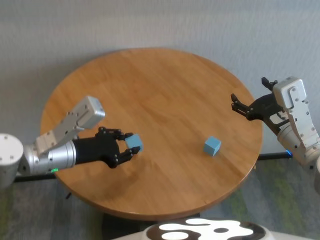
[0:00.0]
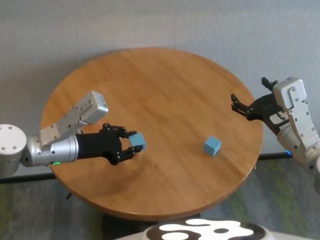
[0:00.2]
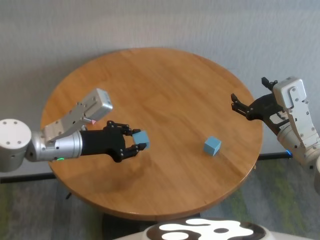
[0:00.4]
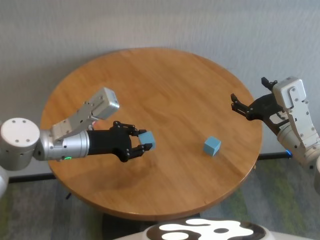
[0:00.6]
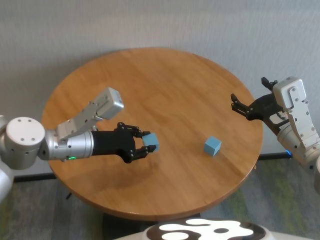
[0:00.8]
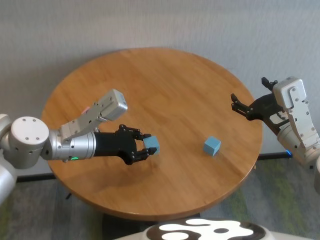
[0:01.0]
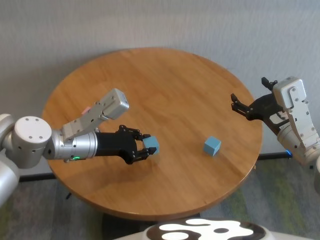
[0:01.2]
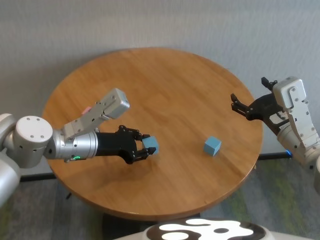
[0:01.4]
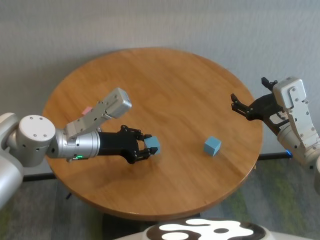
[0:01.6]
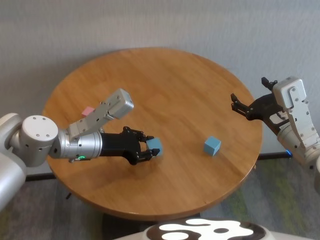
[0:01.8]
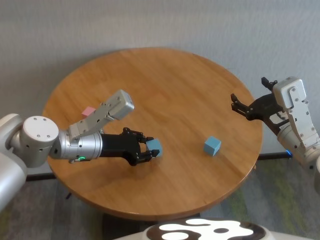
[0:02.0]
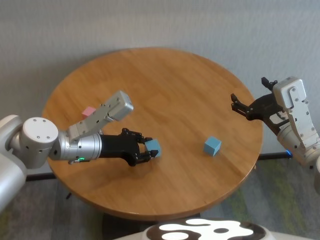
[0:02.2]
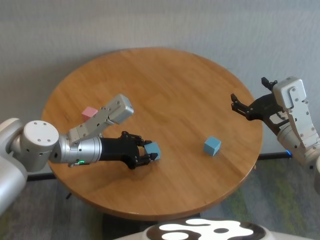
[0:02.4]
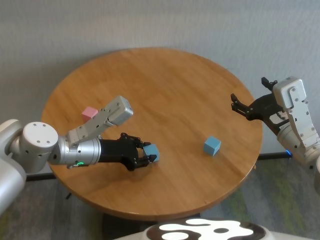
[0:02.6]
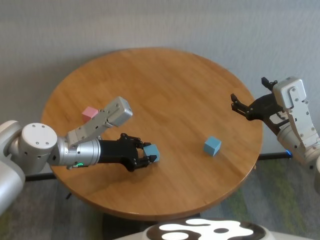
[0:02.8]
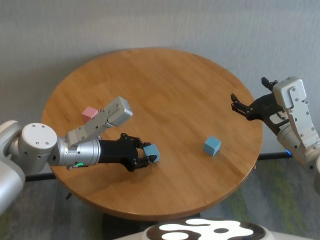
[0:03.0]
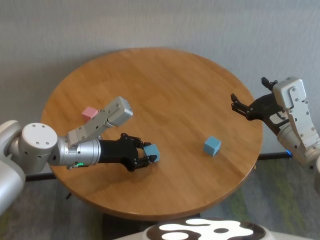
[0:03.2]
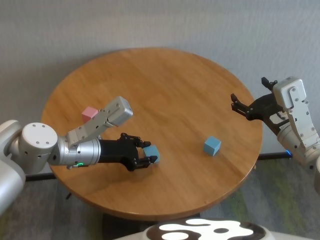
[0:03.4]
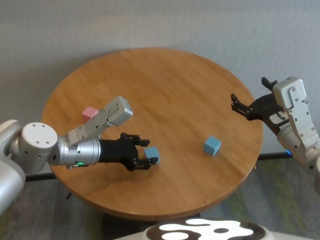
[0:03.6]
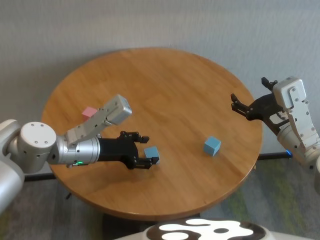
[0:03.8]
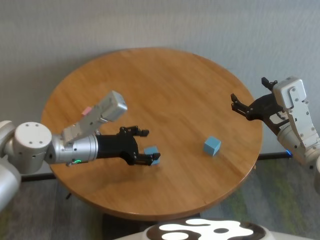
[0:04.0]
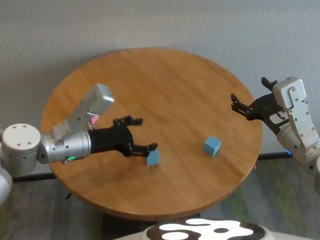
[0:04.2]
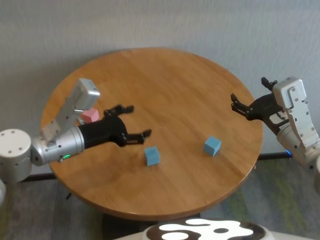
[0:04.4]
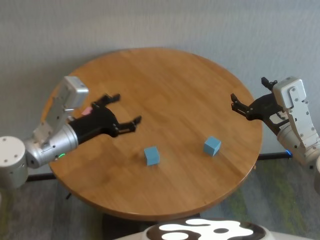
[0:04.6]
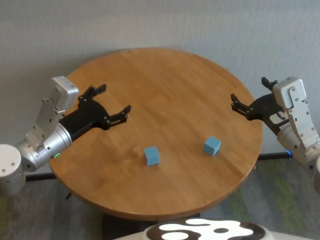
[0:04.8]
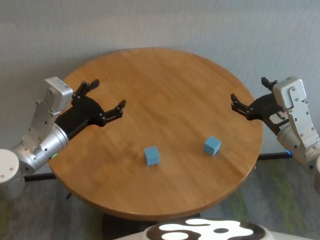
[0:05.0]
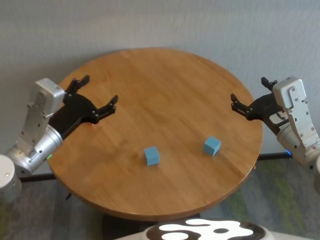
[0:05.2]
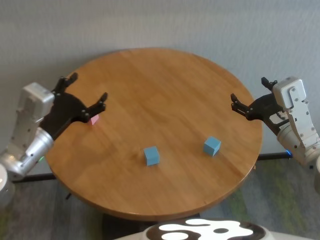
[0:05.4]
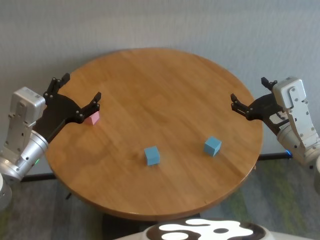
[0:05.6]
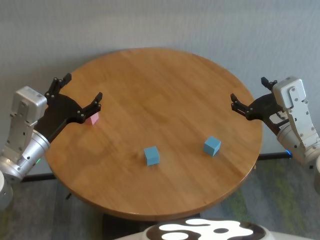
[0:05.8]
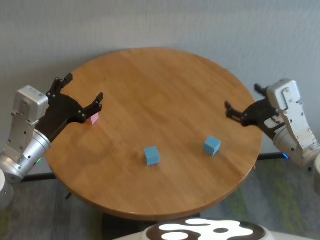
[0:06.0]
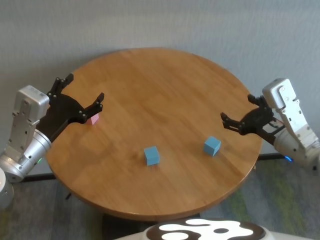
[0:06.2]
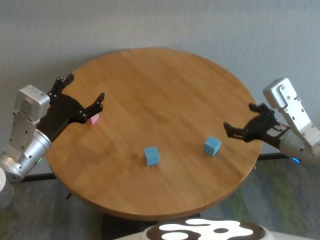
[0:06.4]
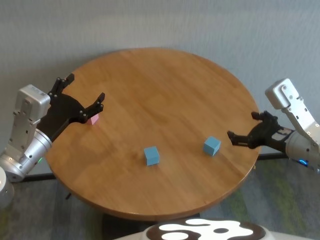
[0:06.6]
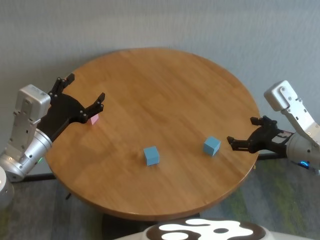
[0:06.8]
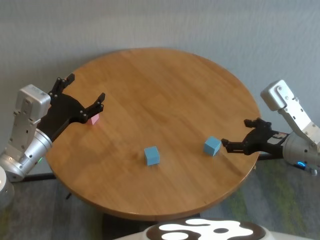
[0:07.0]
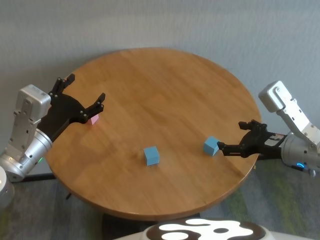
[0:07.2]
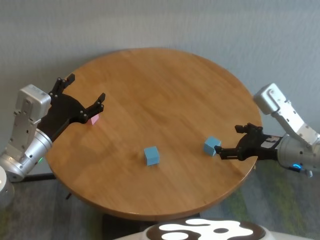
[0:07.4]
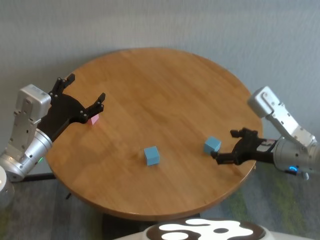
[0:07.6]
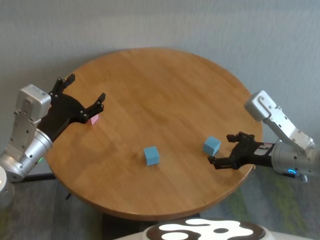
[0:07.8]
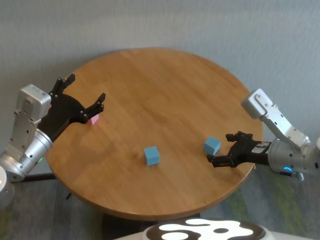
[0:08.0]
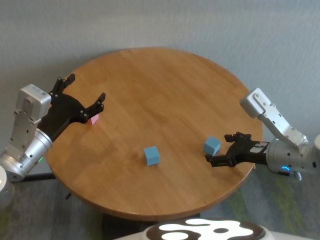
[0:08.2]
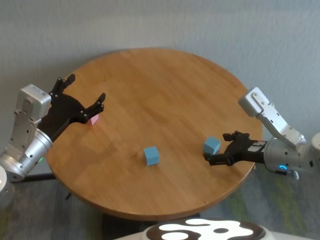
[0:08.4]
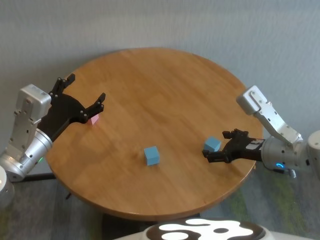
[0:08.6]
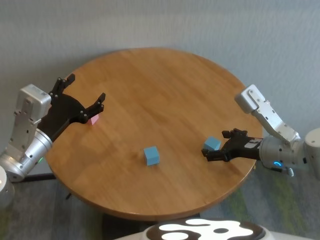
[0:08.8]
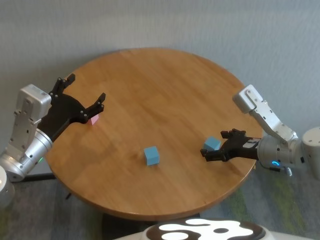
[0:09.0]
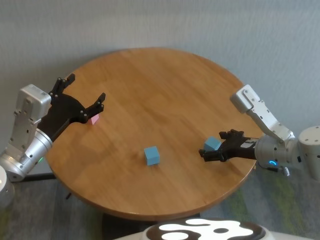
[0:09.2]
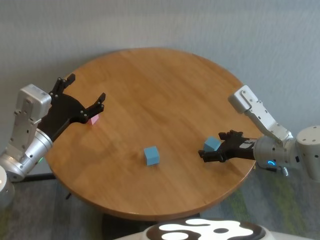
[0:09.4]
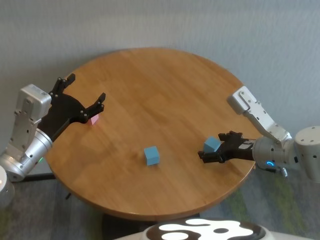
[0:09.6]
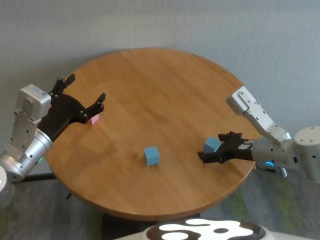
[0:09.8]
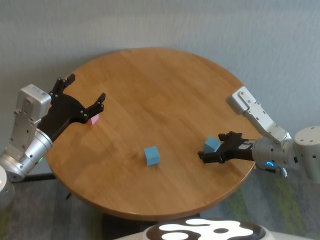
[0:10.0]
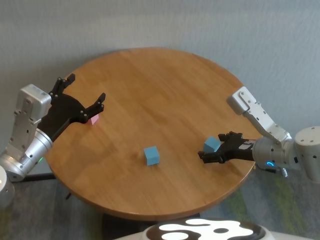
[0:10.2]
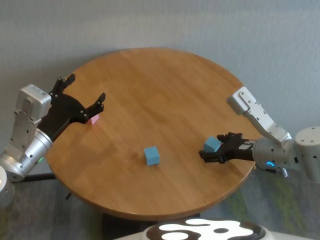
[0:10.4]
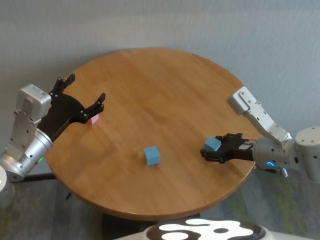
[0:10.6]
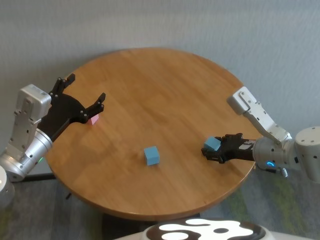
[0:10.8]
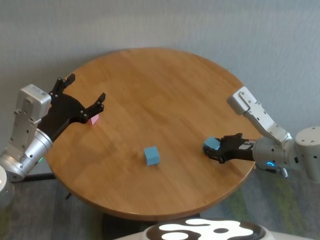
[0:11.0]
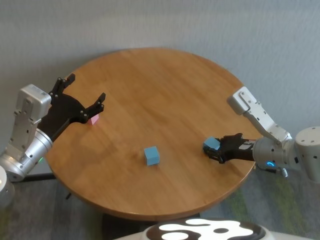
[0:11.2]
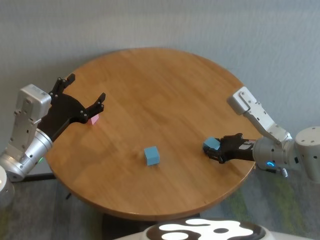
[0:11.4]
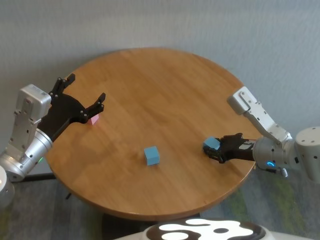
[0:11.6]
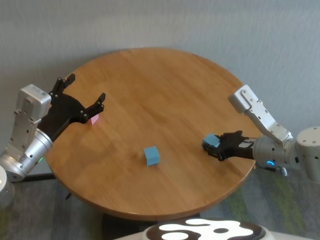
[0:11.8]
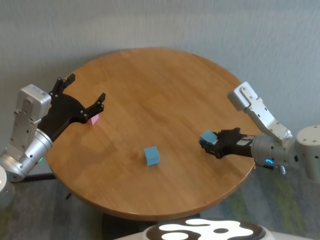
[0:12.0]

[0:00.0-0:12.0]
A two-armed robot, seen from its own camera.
Task of the whole recording: stack building blocks on the table.
Step, 0:00.0 to 0:03.6: Place the blue building block in the center of table with left gripper.
Step, 0:04.0 to 0:11.6: Grasp the blue building block with right gripper.

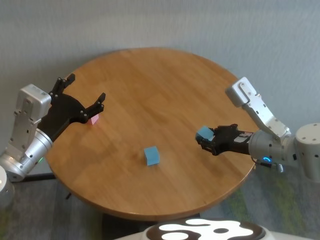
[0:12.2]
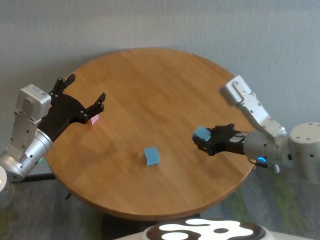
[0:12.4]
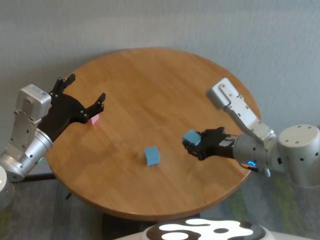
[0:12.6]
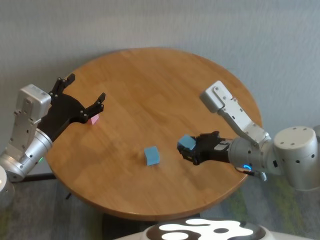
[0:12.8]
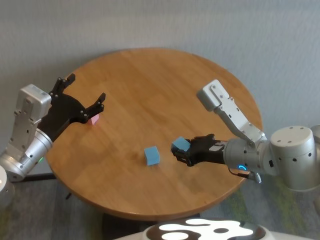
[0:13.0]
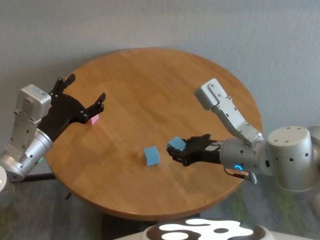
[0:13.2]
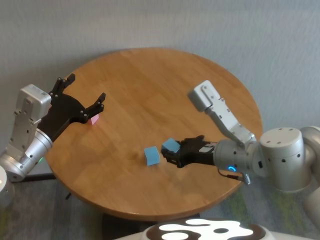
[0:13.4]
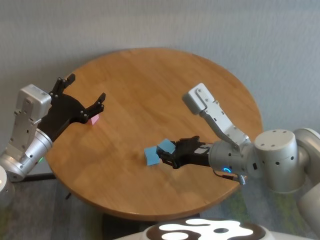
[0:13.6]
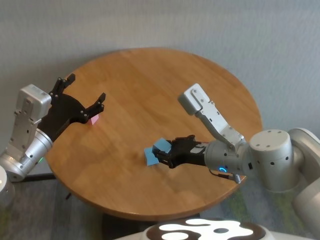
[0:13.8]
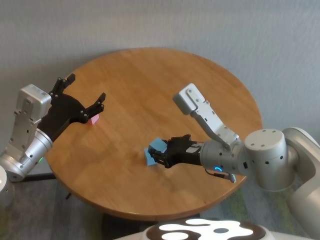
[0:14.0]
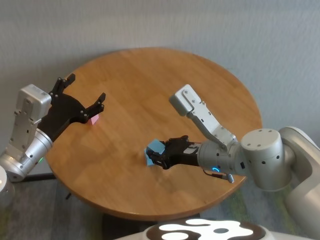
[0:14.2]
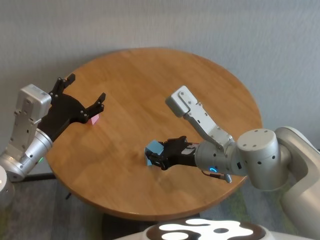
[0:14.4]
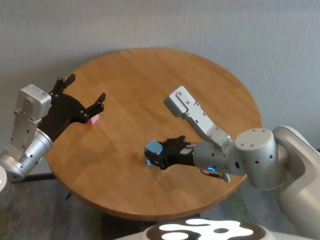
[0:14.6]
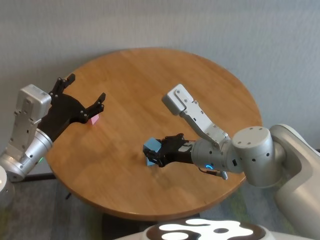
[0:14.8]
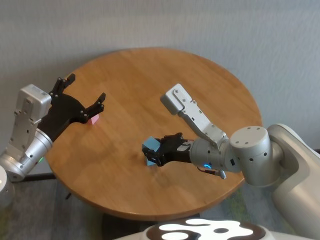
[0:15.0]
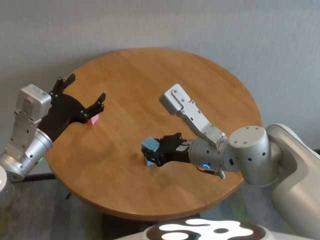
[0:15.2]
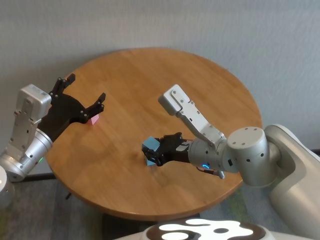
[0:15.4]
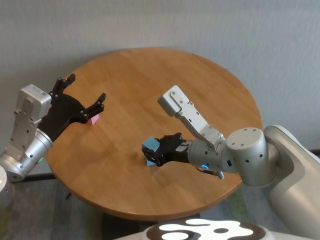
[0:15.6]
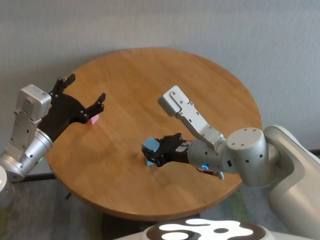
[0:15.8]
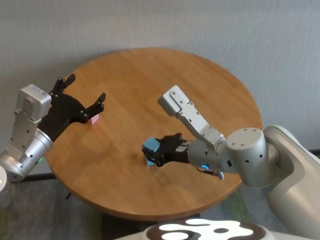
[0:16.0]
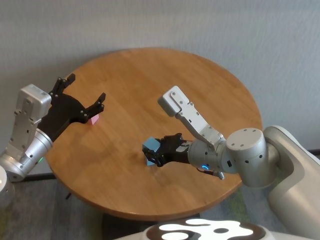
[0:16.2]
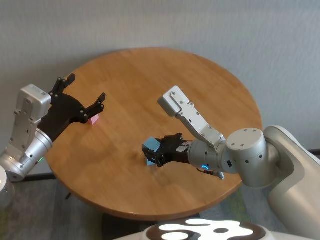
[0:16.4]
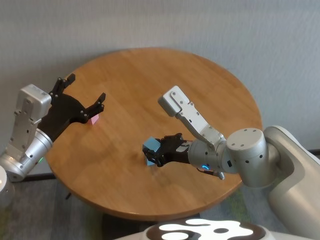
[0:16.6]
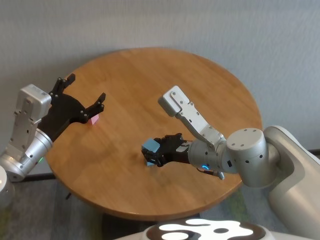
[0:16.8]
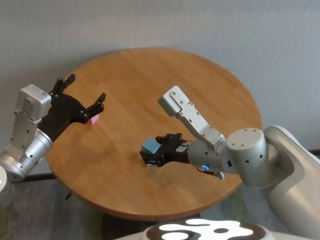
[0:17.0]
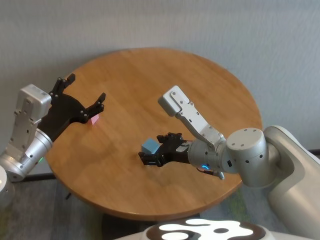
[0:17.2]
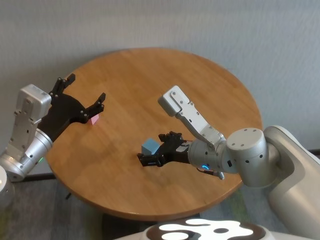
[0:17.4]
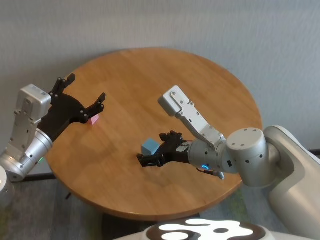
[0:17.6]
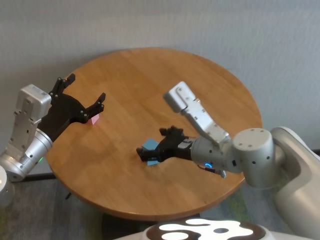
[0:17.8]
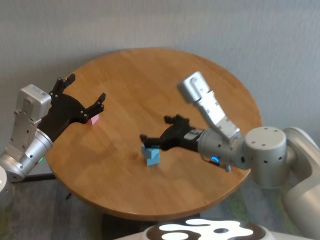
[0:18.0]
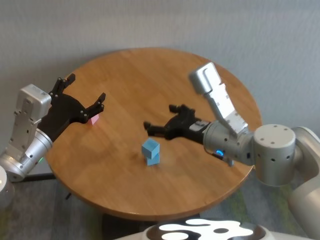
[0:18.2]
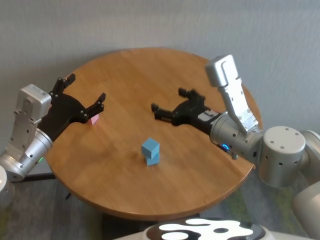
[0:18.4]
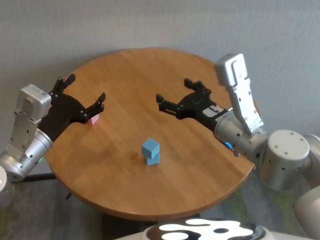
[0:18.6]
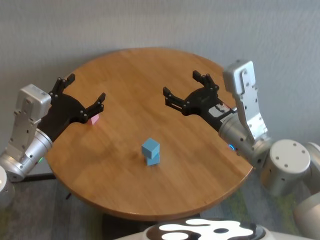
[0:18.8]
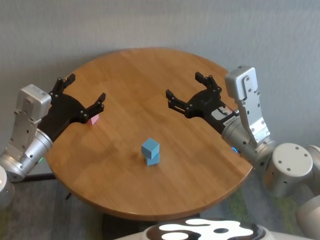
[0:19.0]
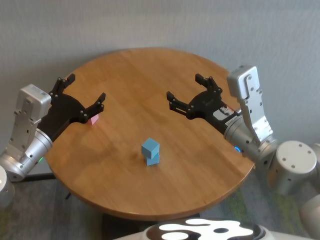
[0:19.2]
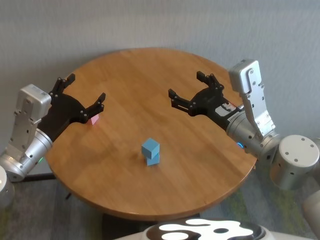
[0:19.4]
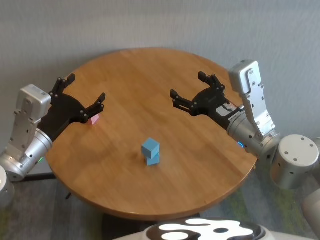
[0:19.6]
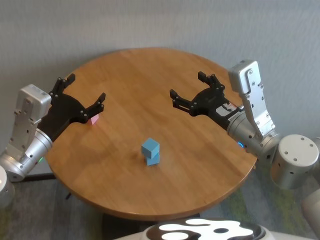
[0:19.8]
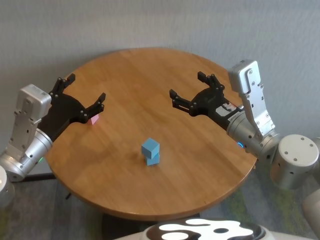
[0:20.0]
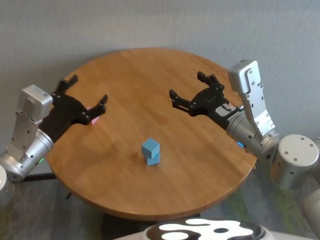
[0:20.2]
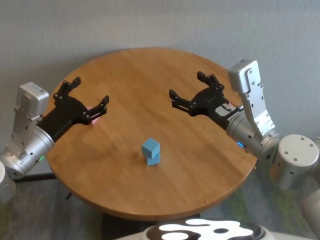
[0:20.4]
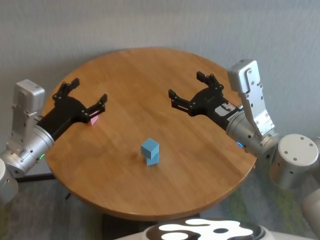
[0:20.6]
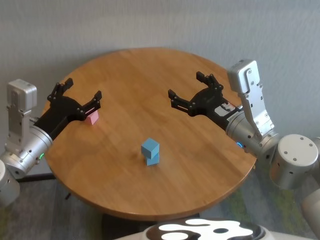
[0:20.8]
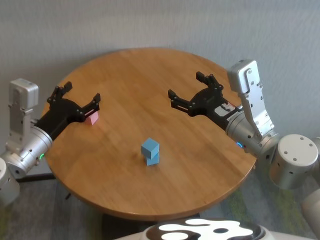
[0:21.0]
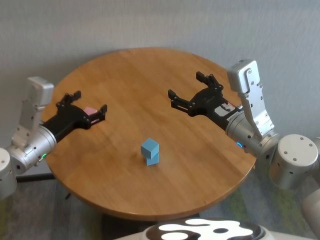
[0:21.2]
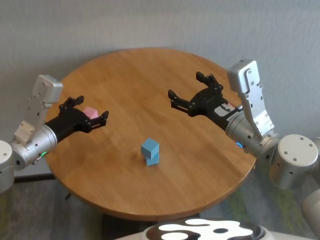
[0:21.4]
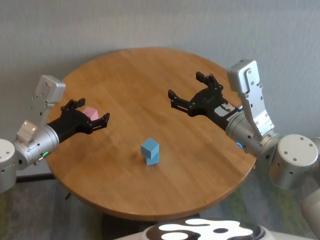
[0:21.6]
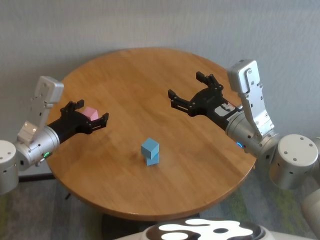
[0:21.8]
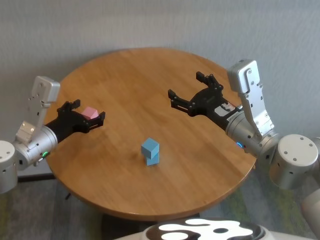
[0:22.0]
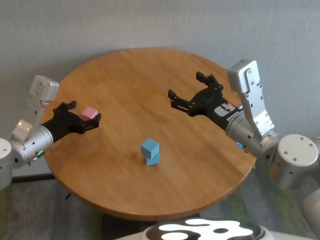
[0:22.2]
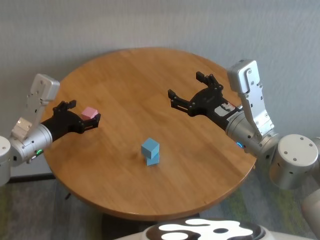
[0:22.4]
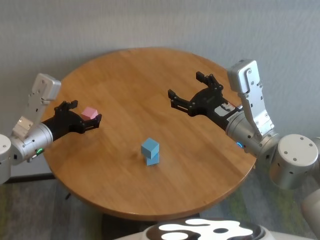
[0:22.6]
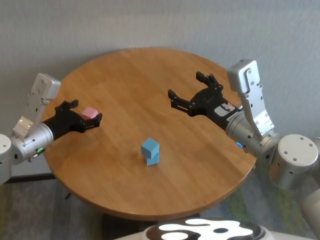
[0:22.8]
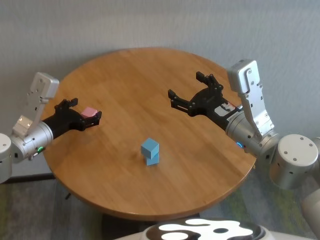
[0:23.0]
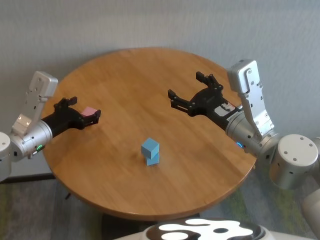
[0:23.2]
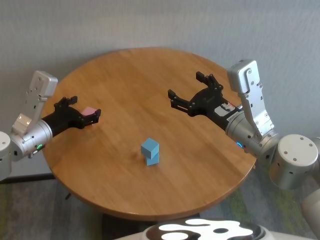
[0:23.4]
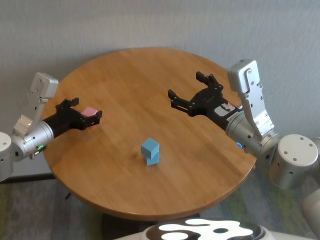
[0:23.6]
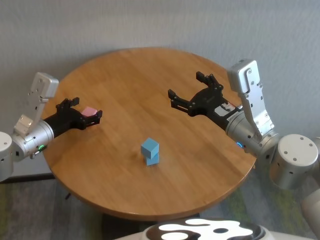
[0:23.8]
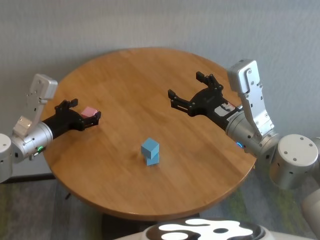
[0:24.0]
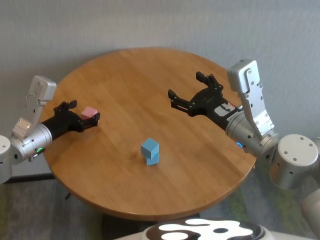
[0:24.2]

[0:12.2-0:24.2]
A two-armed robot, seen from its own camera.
Task of the whole recording: stack building blocks on the table.
Step, 0:12.2 to 0:17.4: Place the blue building block on the blue building blocks with right gripper.
